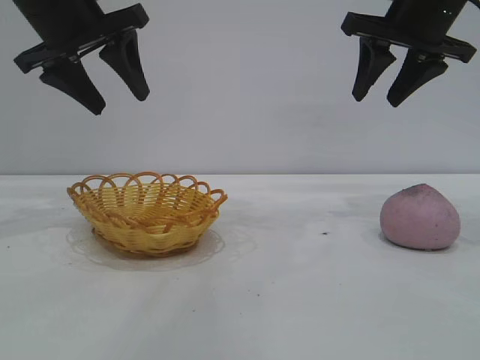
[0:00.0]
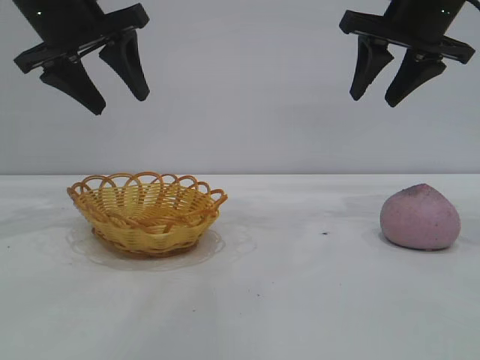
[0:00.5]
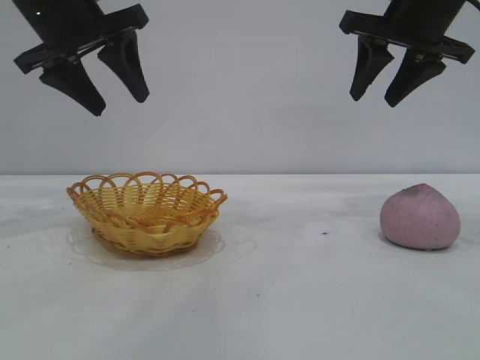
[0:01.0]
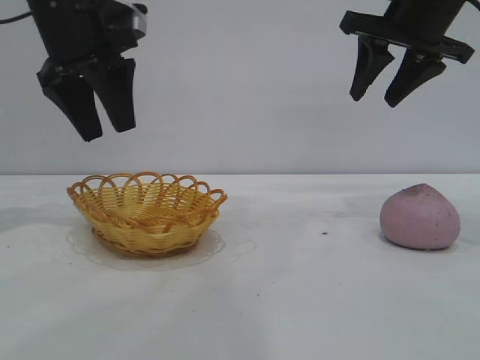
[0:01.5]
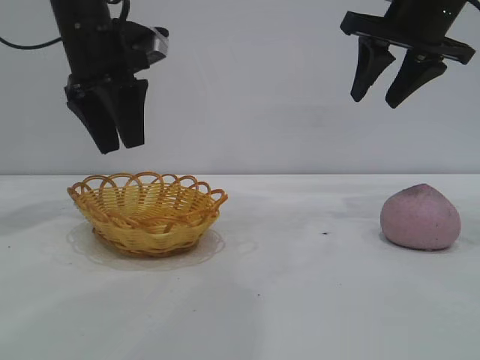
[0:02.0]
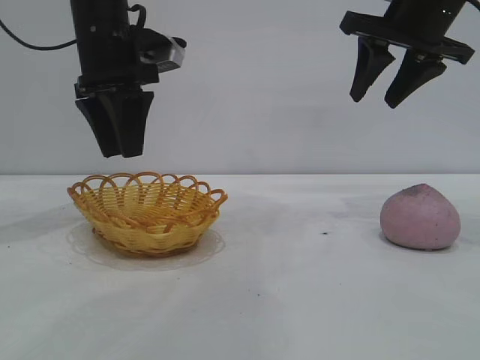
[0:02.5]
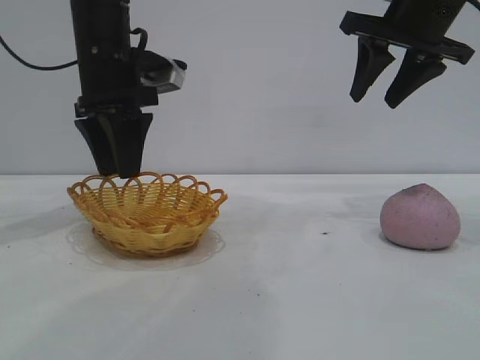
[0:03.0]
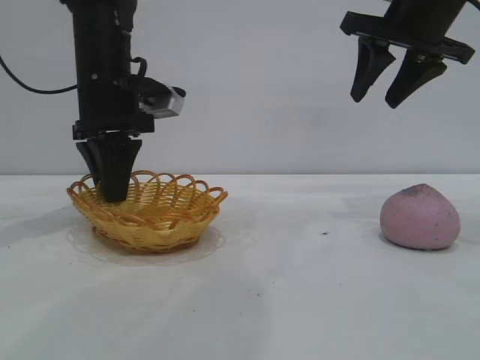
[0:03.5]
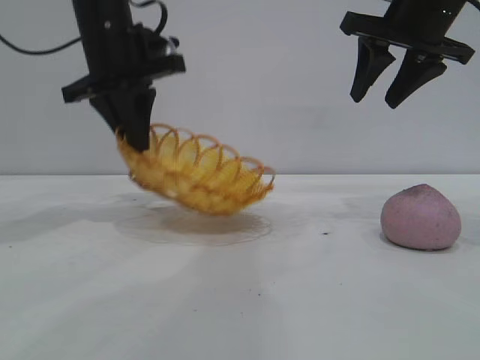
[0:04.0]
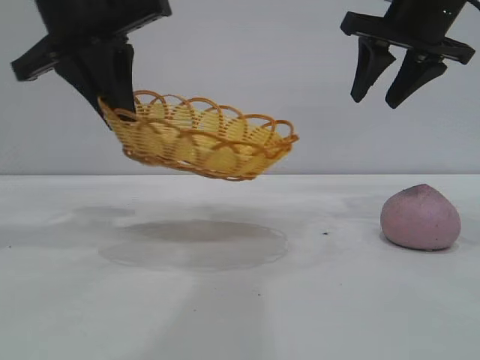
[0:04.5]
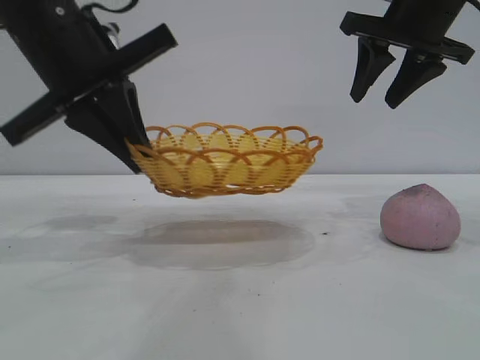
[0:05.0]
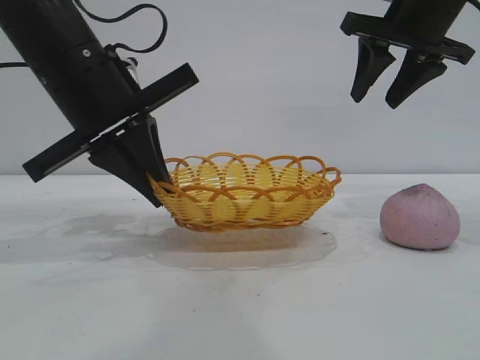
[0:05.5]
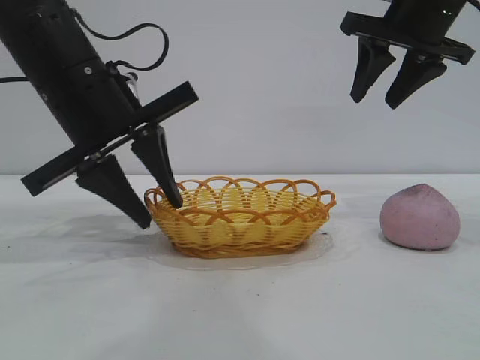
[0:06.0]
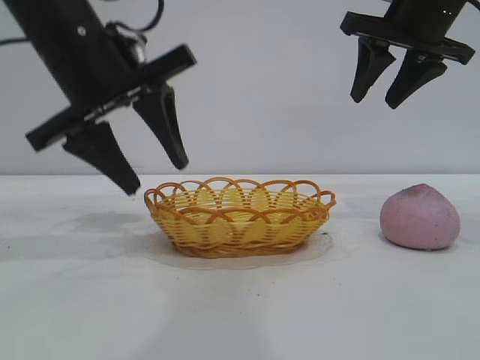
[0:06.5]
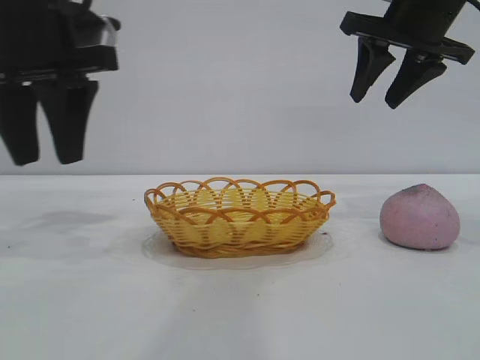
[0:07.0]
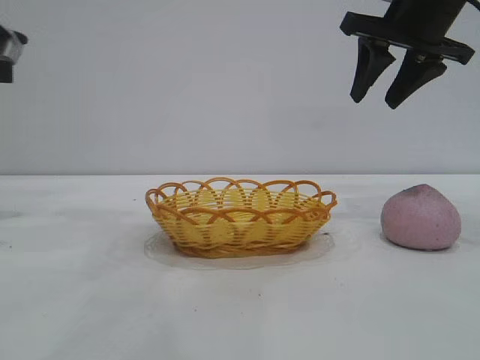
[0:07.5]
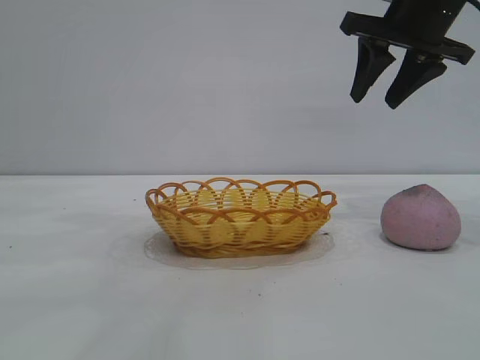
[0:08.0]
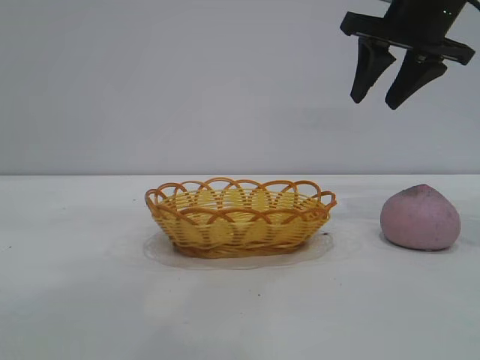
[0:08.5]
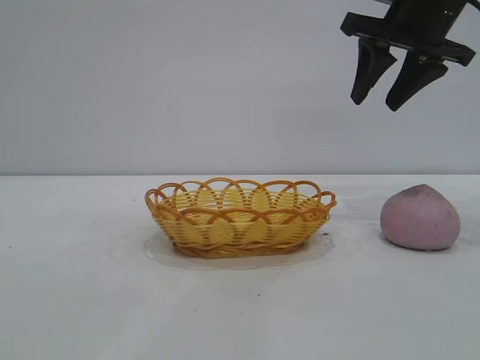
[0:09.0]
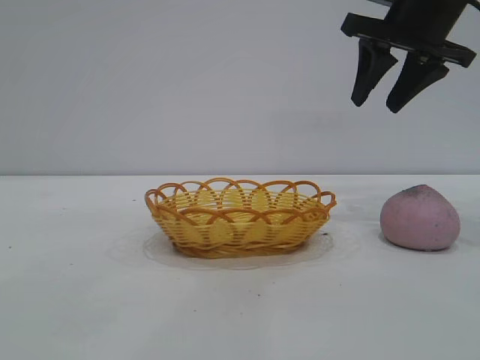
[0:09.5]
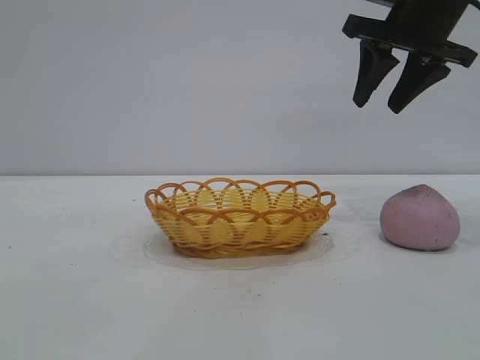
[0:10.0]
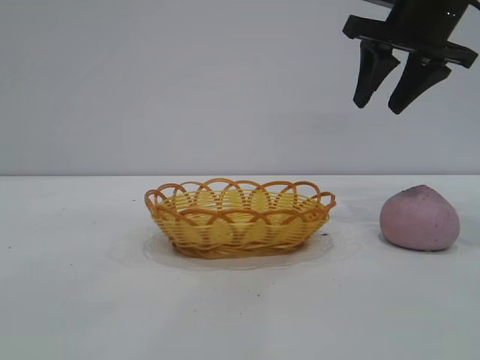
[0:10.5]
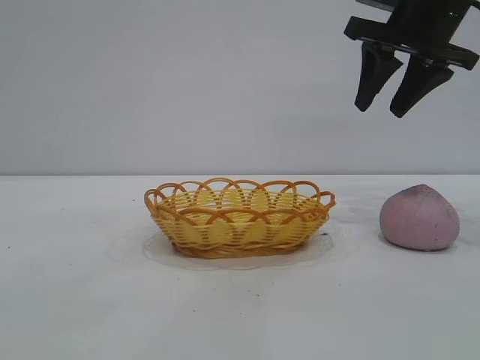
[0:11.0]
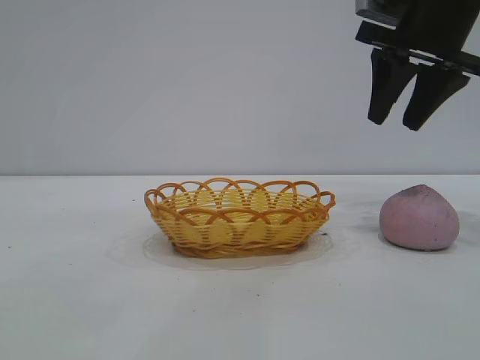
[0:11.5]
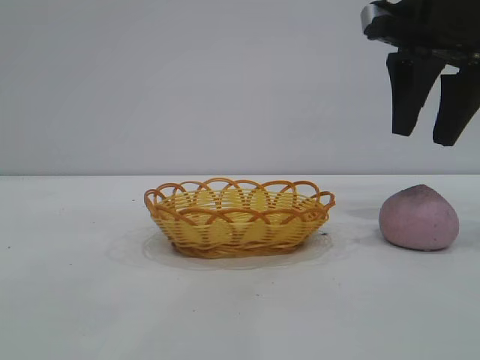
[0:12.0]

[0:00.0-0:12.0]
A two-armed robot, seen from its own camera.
Task of the whole recording: pick up the peach and put it into the basket.
Step, 0:00.0 to 0:06.5: Move the basket to the center of view.

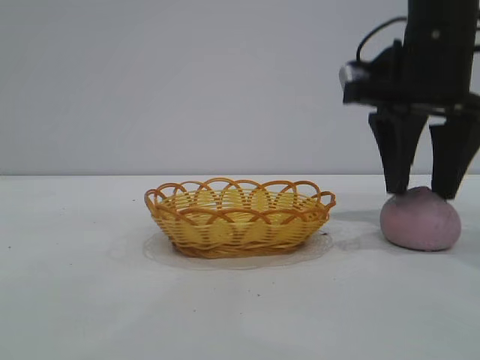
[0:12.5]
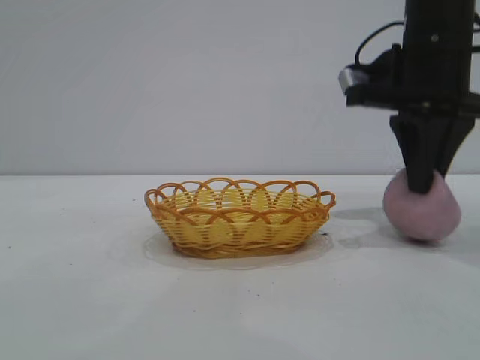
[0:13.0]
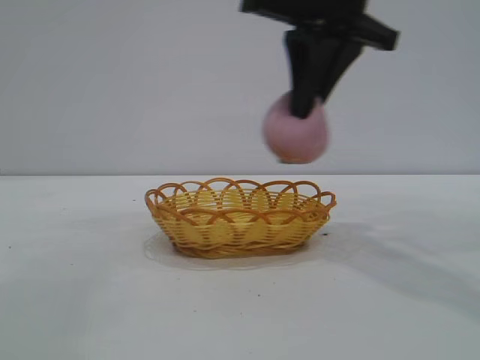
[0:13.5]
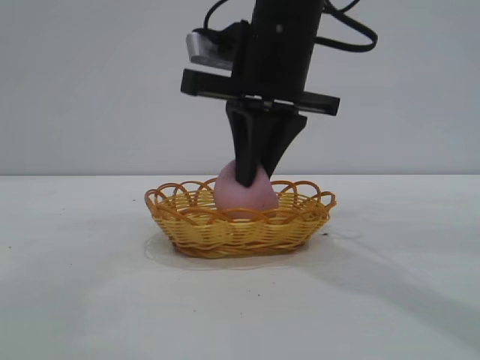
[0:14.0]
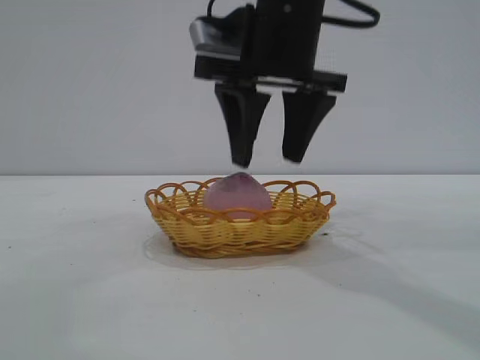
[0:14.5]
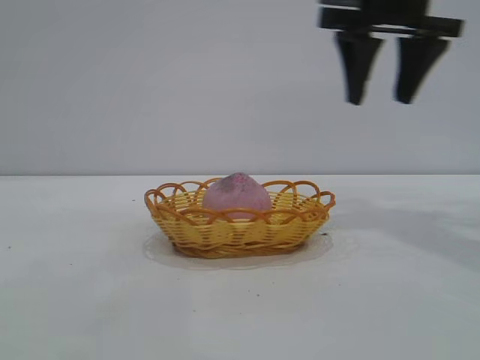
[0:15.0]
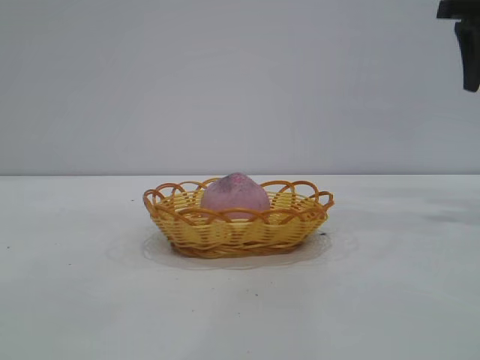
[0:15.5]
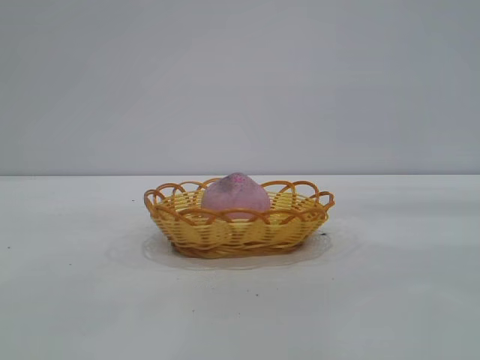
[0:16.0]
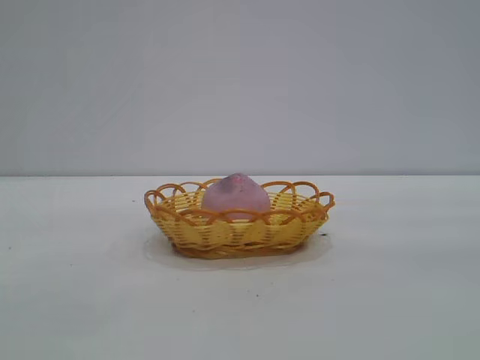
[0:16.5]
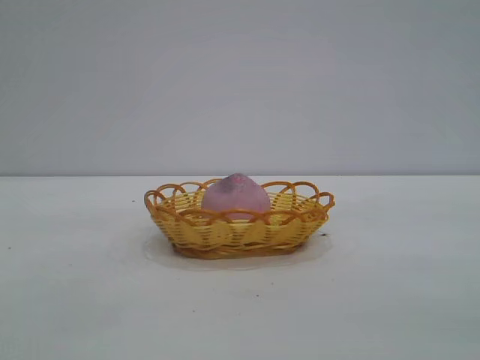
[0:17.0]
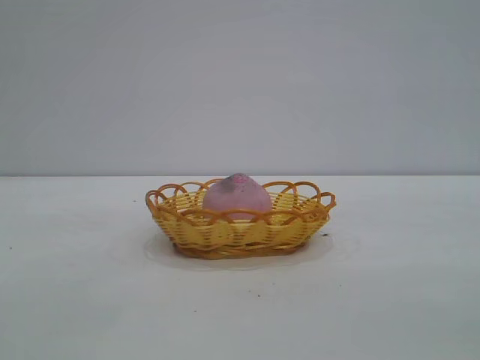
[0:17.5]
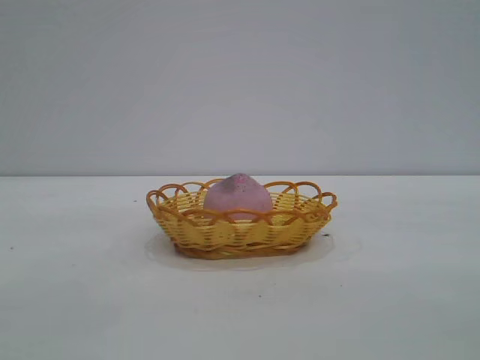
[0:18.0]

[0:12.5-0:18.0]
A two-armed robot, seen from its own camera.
Task of the whole recording: pick up the peach and put it into the basket.
Step, 0:13.5 to 0:14.5: place the peach into the basket.

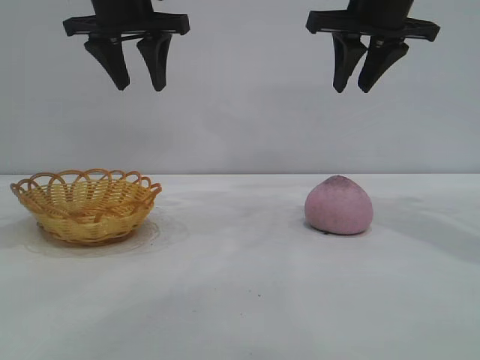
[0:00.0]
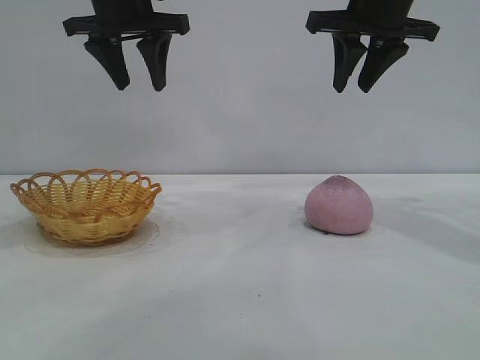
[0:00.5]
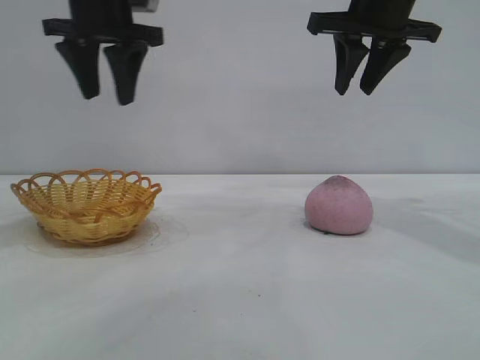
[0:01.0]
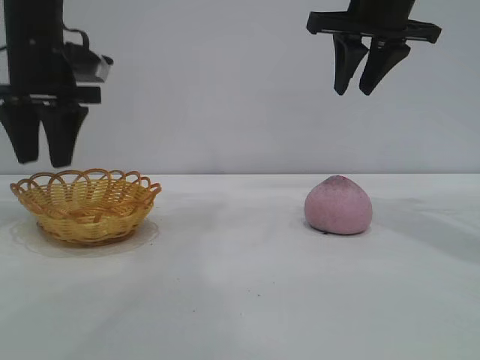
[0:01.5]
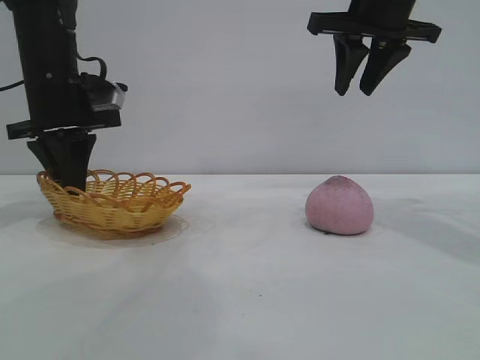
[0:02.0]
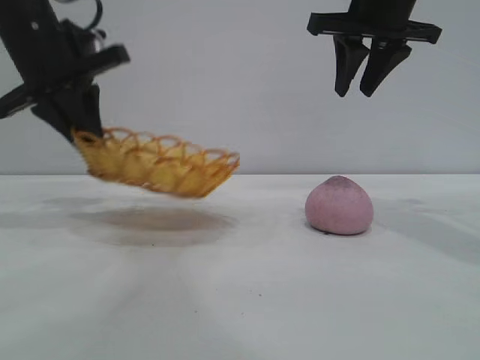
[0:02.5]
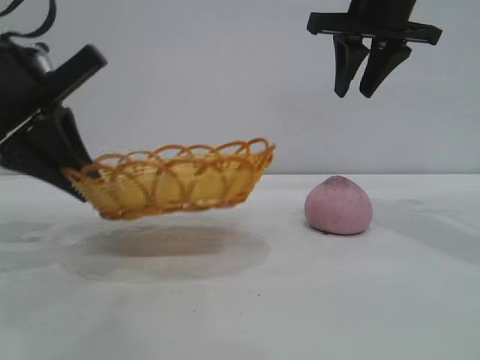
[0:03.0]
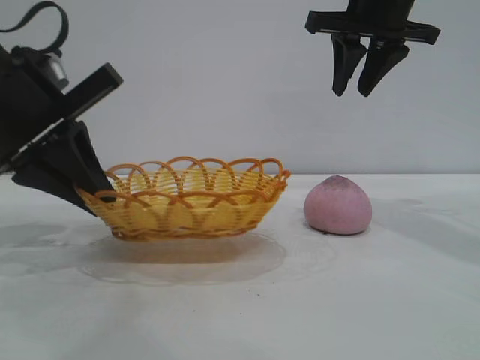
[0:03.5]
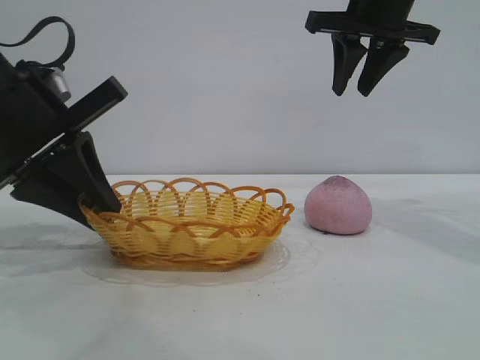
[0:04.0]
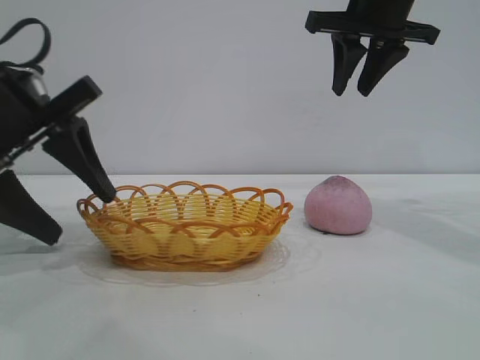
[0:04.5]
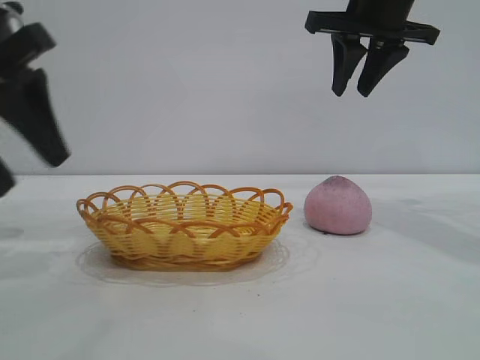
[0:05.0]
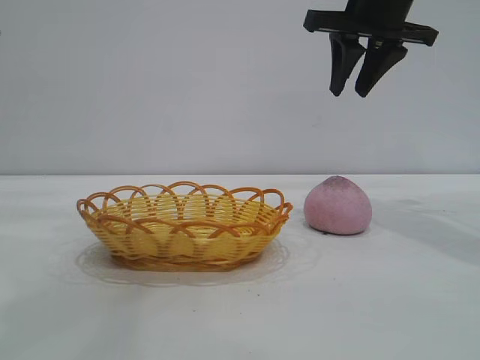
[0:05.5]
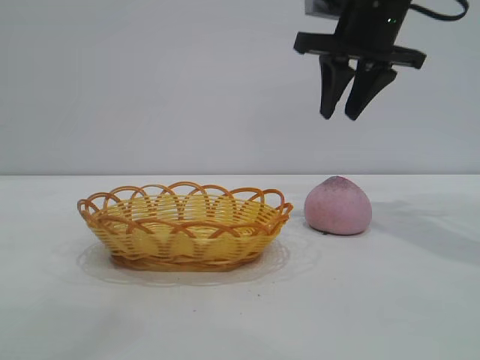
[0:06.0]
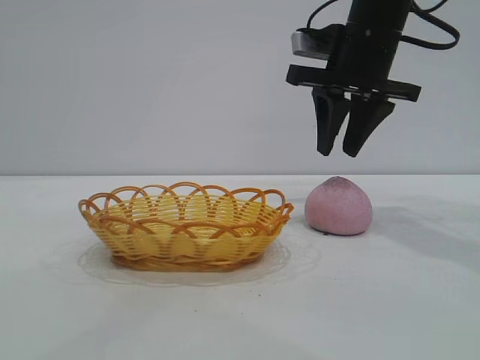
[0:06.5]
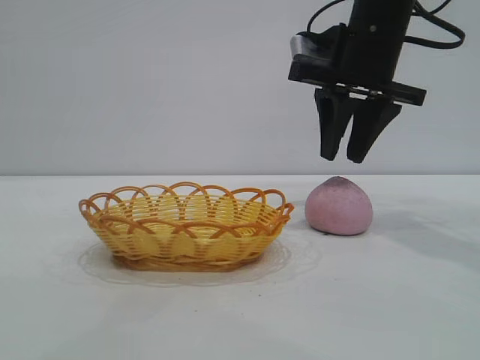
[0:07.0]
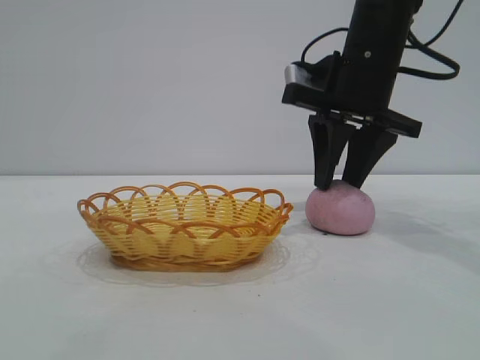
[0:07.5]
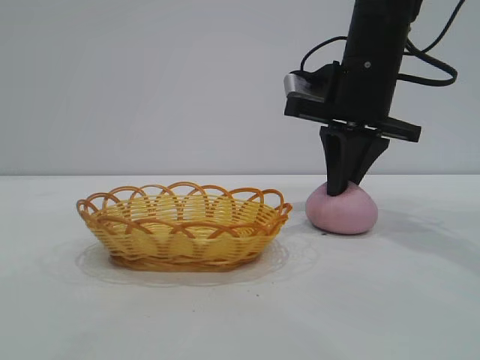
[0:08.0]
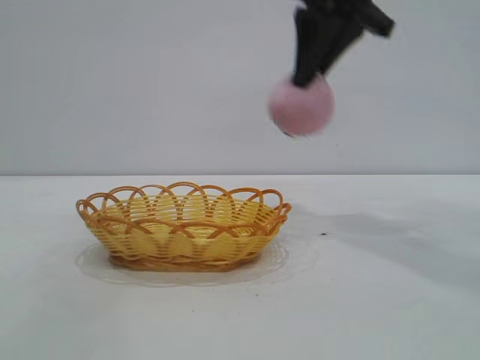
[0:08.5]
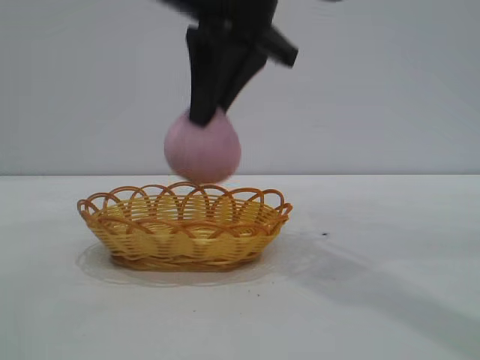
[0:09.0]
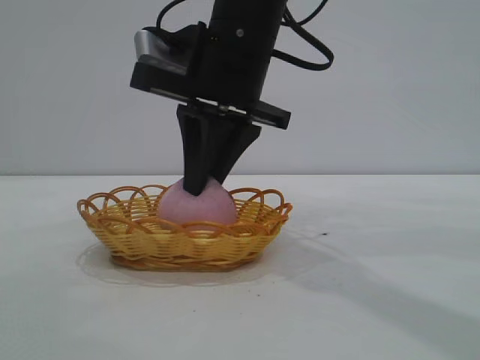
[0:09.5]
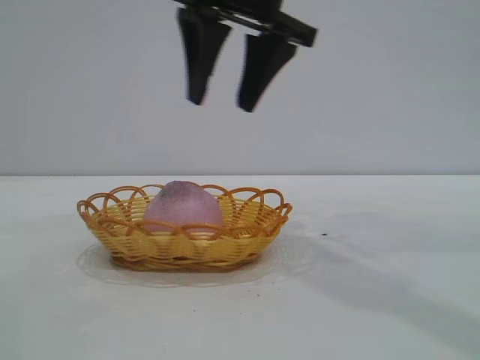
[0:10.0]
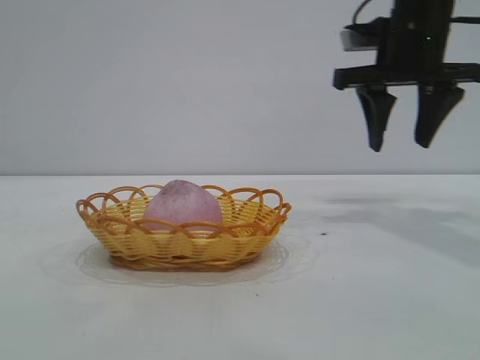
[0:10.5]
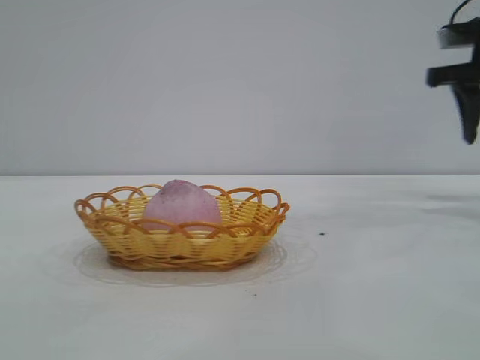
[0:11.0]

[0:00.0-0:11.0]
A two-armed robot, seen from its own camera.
Task of the whole recording: pick up the peach and put it into the basket.
Step, 0:00.0 to 0:04.5: Move the basket to the center of view.
Step, 0:05.0 to 0:08.0: Pick up the peach.
Step, 0:08.5 to 0:10.0: place the peach into the basket.
